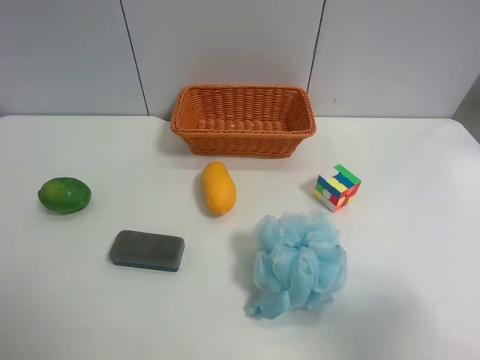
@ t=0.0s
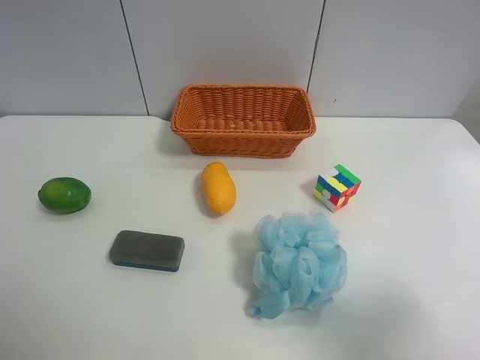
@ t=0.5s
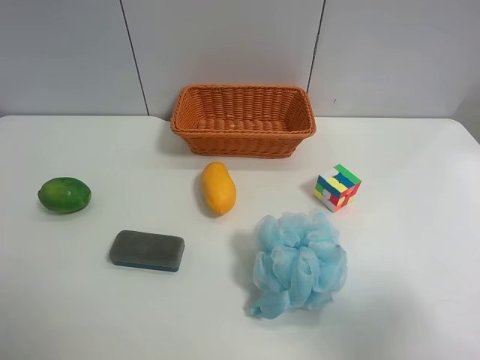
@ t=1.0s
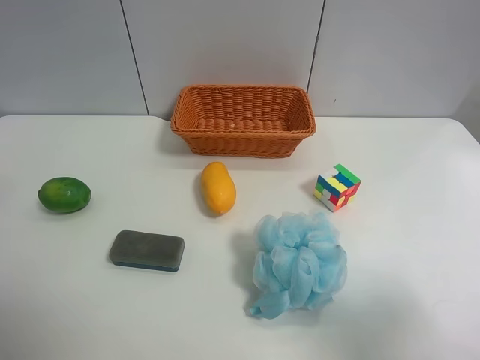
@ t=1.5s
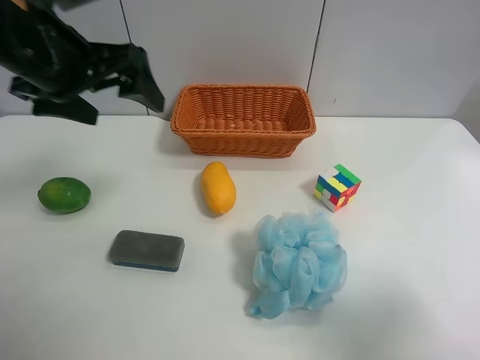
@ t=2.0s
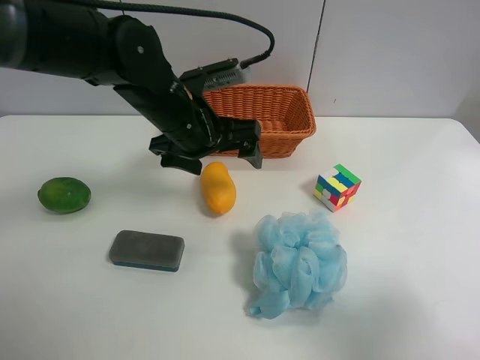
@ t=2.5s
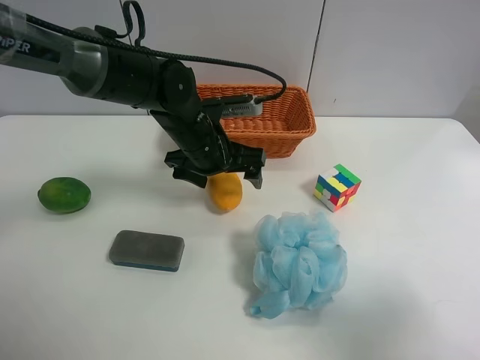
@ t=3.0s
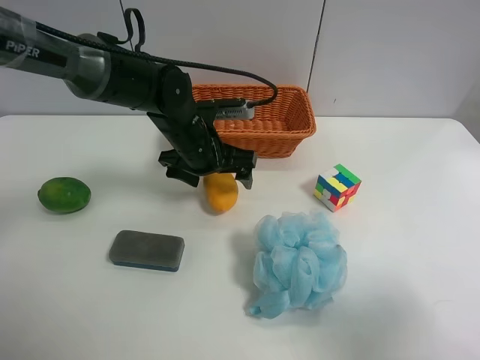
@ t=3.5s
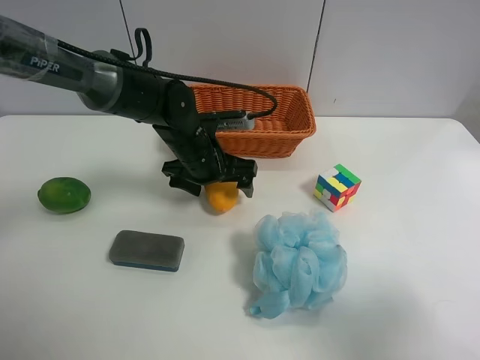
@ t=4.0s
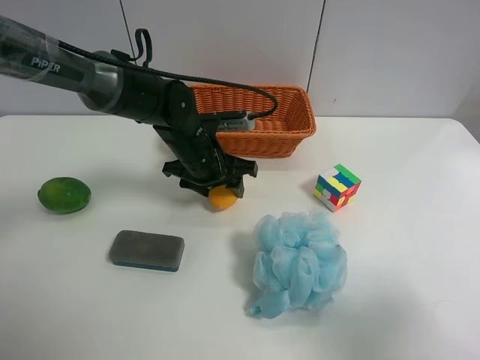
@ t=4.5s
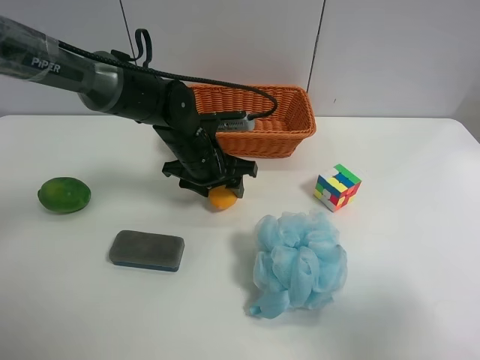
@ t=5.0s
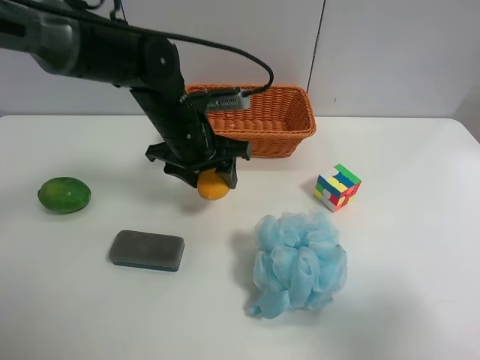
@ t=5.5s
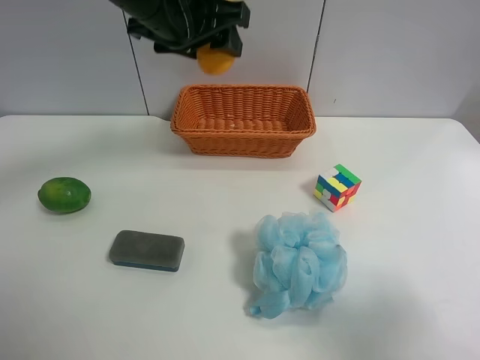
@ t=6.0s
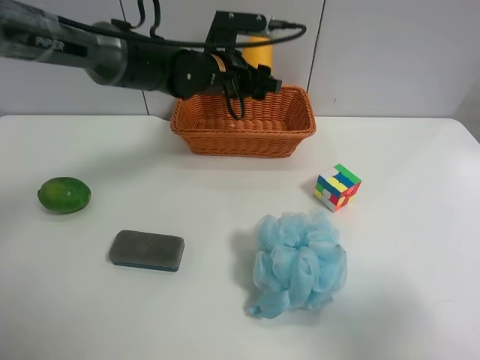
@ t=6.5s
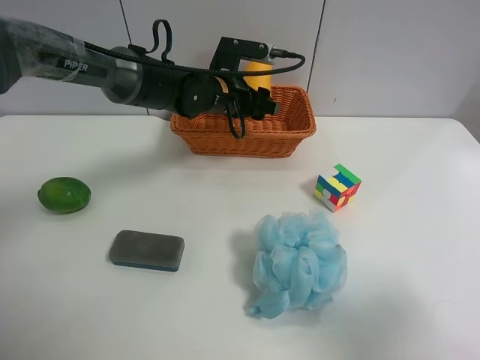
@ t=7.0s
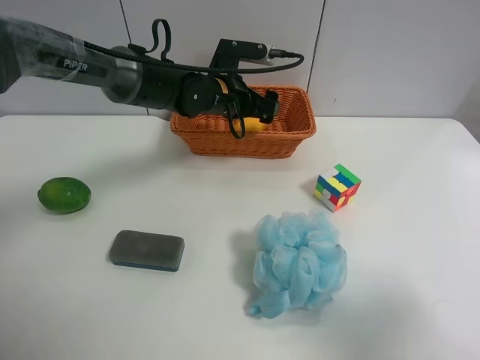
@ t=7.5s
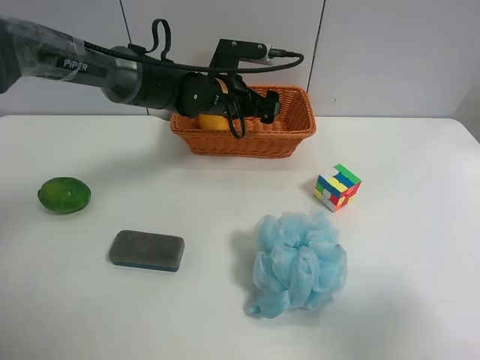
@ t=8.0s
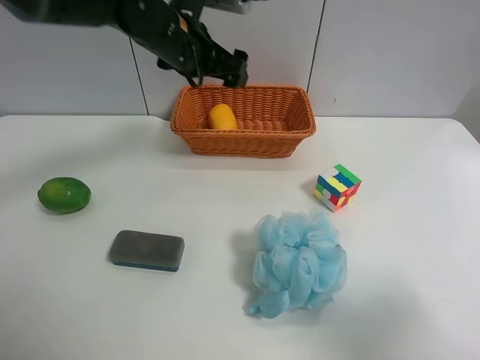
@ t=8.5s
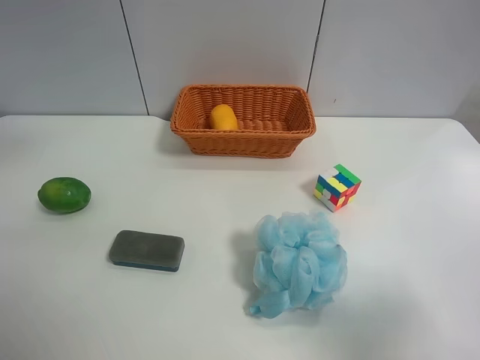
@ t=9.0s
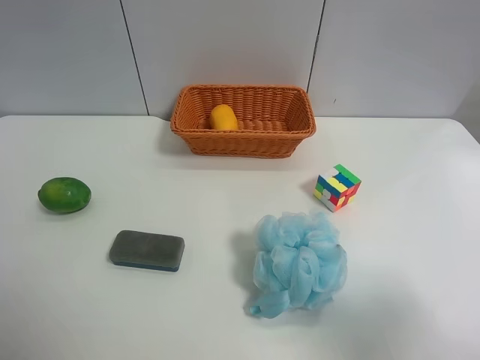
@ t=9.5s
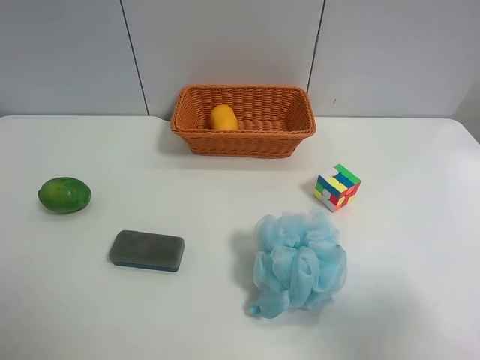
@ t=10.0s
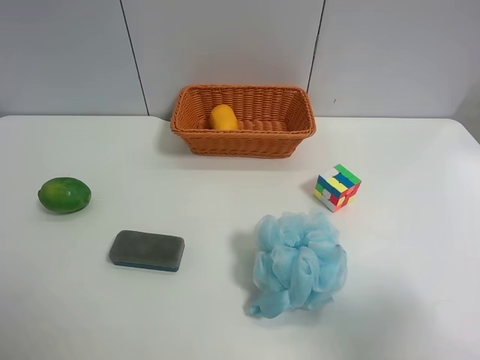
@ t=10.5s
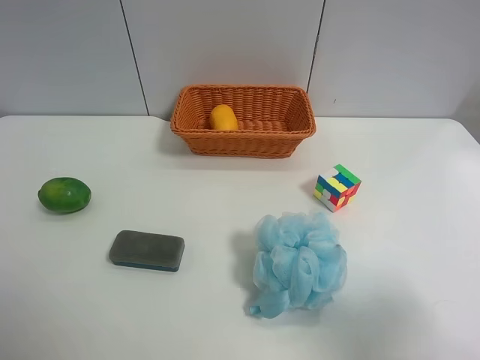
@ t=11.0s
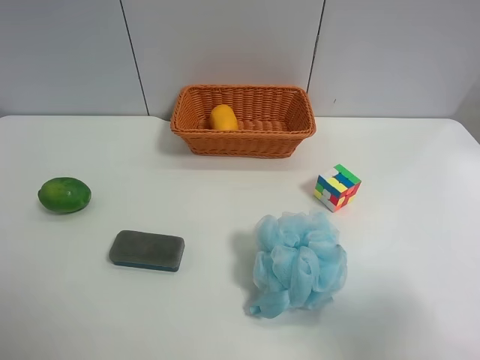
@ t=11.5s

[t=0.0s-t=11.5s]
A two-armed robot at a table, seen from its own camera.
Task of the whole recording: Randomly grab green lemon or mangoes from the table and put them in a basket.
Step, t=0.0s to t=4.5s: Grasp the mango with the left gripper.
Step, t=5.0s to t=8.5s: Place the mango into the basket with the left gripper.
t=0.0s to t=2.0s: The left gripper heads forward and to the right, covering approximately 30 cm.
t=2.0s to t=4.0s: The left gripper moves downward, to the right and forward, about 25 cm.
t=4.0s to t=6.0s: The left gripper is displaced upward by approximately 20 cm, and closes its fingers.
t=6.0s to t=7.5s: The left gripper travels downward and forward by approximately 20 cm, and opens its fingers.
t=7.5s to t=9.5s: The left gripper moves backward, to the left and upward, some 50 cm.

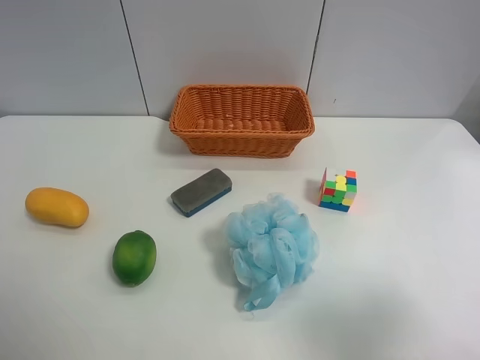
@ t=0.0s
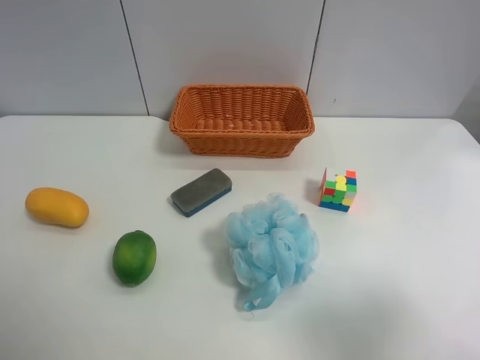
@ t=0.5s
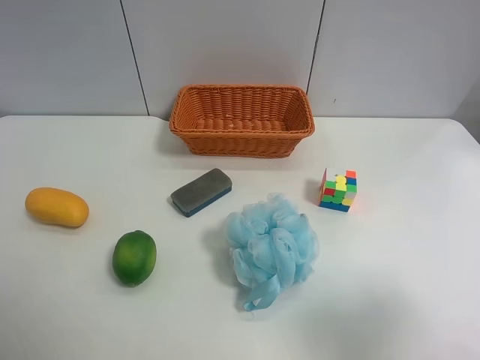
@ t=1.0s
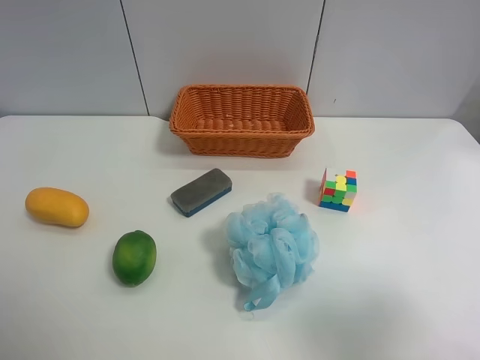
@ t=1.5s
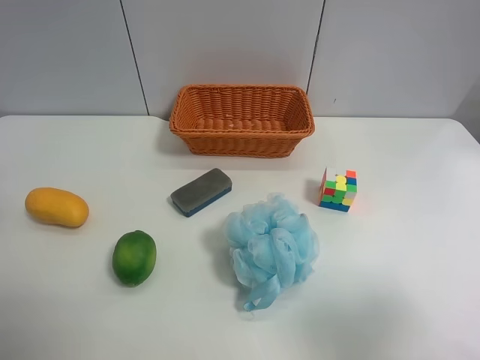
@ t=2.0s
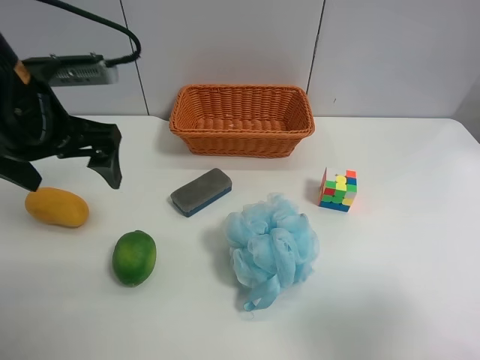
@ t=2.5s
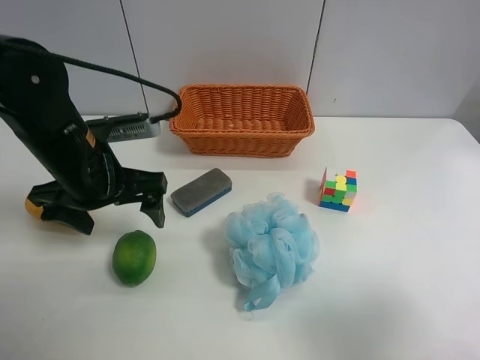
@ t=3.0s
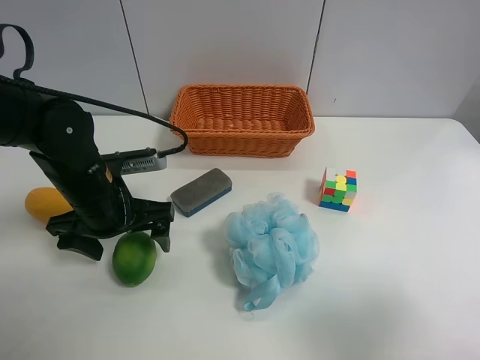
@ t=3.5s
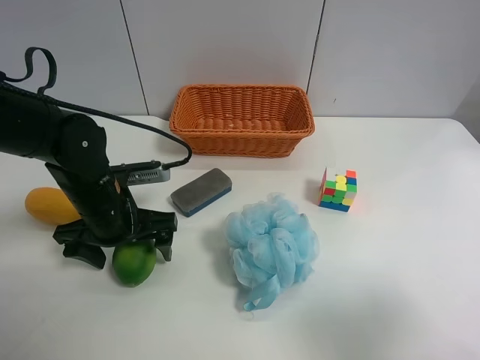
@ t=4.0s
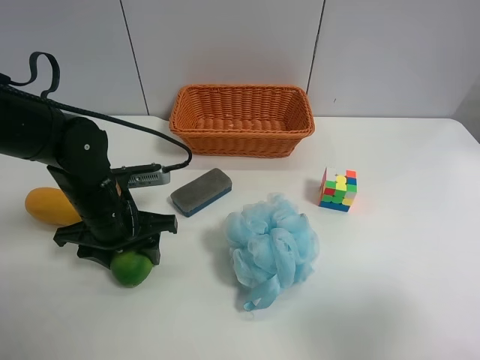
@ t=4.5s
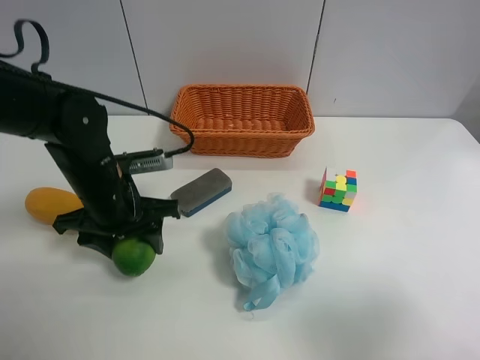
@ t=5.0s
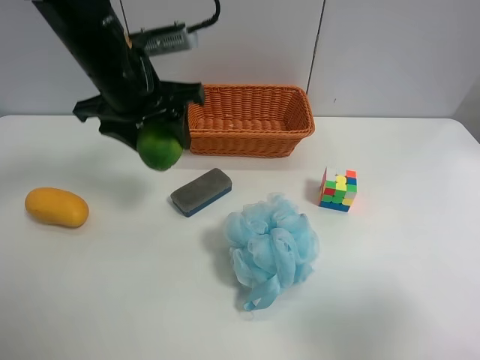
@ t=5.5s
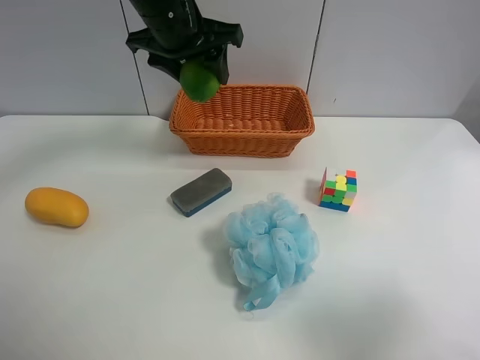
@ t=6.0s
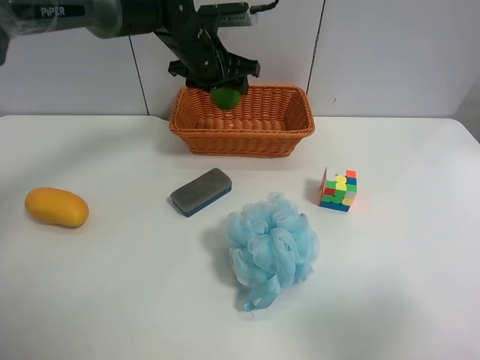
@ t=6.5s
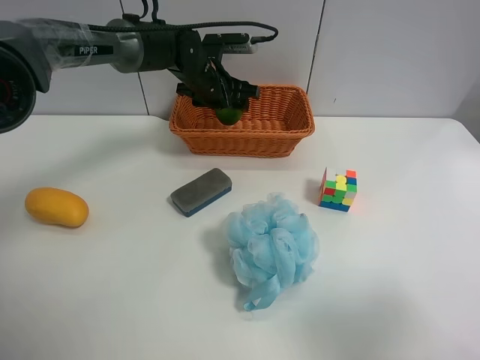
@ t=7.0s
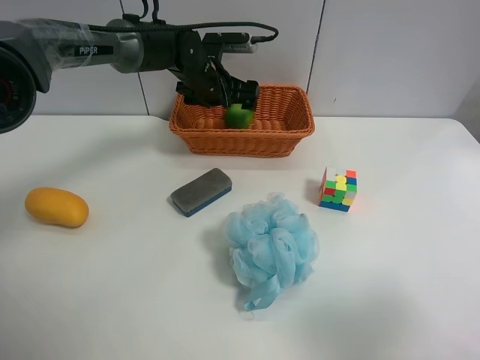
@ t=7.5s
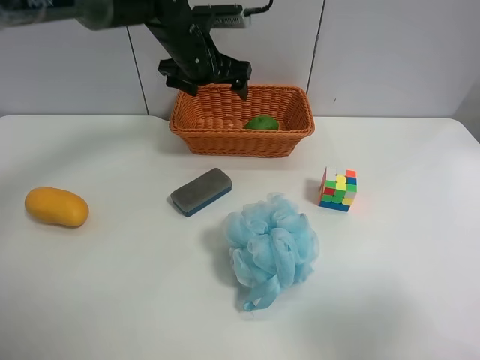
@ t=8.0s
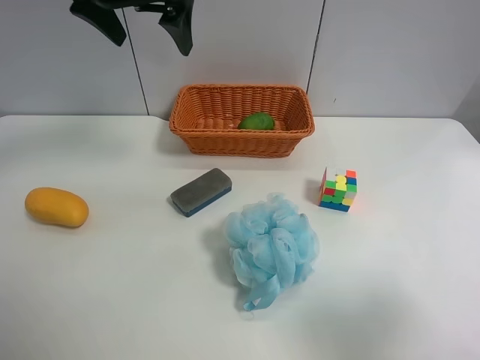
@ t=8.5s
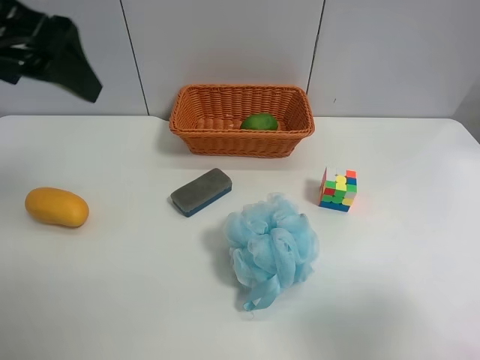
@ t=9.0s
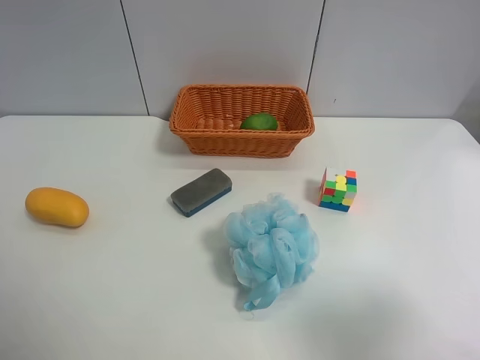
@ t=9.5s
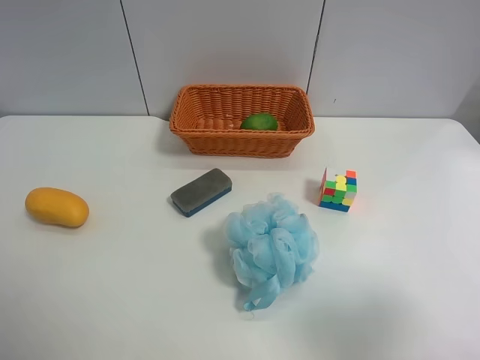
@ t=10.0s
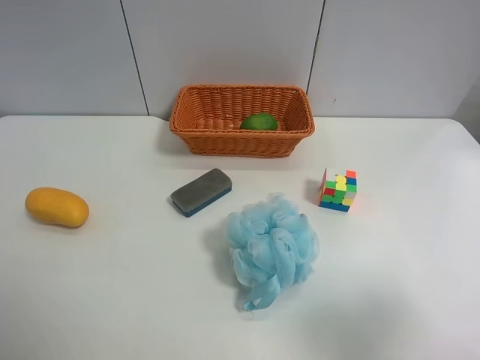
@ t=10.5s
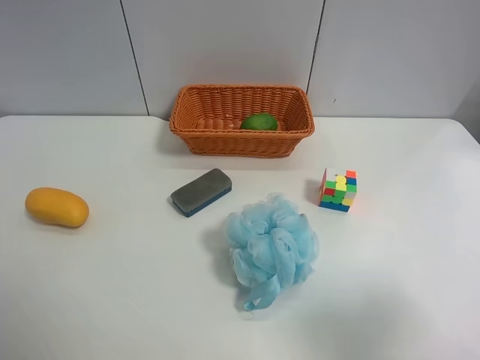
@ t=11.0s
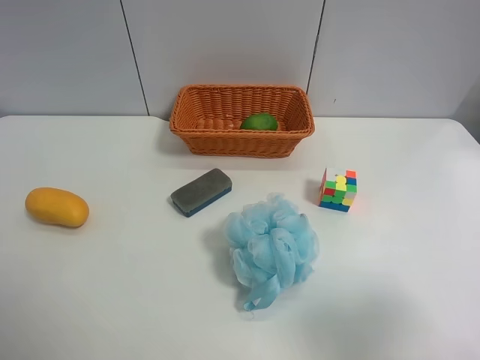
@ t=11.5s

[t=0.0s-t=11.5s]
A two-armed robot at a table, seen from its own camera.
Task of the whole recording: Randomly grab green lemon or mangoes from the table and put them in a basket.
Step, t=0.0s to t=4.0s: Grasp the Lemon with the left gripper.
Step, t=4.5s to t=8.0s: Place the Lemon into the basket with the left gripper.
t=2.0s to t=4.0s: The left gripper moves downward and to the right, approximately 25 cm.
t=4.0s to t=6.0s: The left gripper travels upward, forward and to the right by some 25 cm, and closes its fingers.
t=6.0s to t=7.5s: The left gripper goes roughly 15 cm downward and forward, and opens its fingers.
t=7.5s to t=9.5s: The left gripper goes roughly 50 cm backward, to the left and upward.
